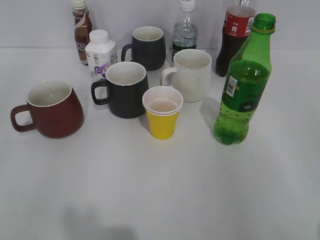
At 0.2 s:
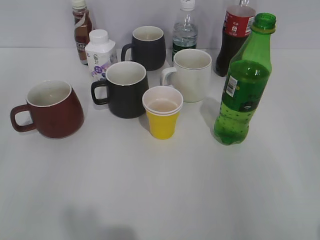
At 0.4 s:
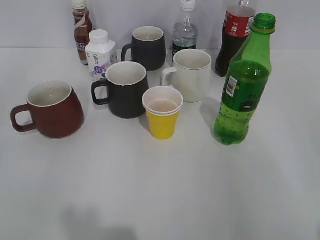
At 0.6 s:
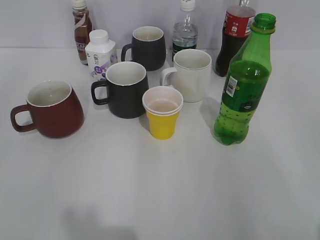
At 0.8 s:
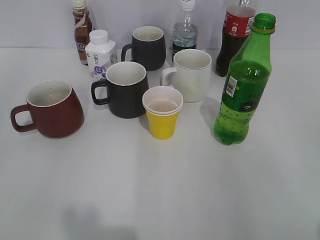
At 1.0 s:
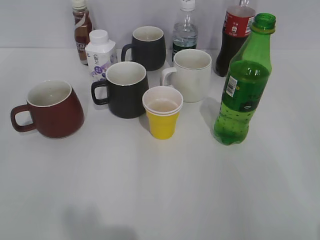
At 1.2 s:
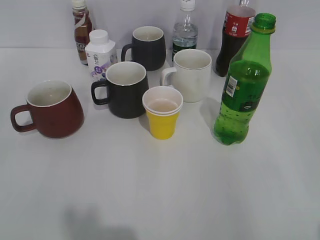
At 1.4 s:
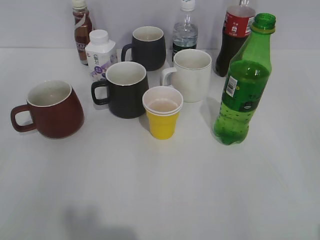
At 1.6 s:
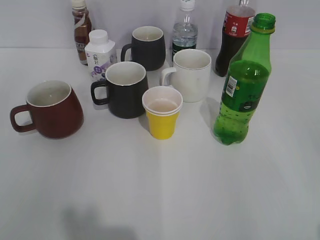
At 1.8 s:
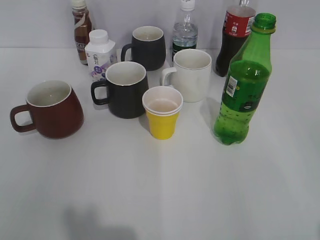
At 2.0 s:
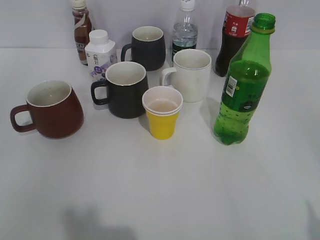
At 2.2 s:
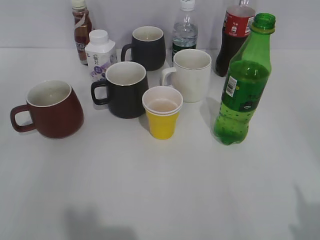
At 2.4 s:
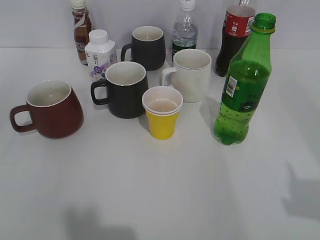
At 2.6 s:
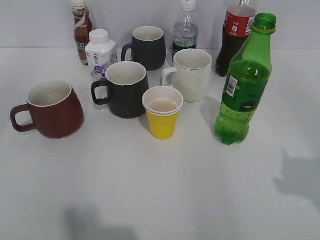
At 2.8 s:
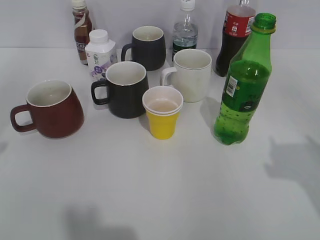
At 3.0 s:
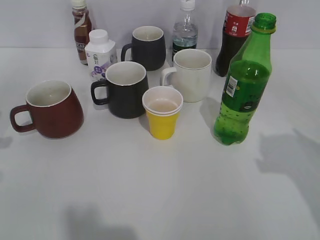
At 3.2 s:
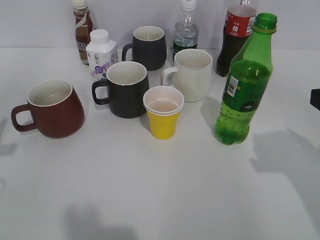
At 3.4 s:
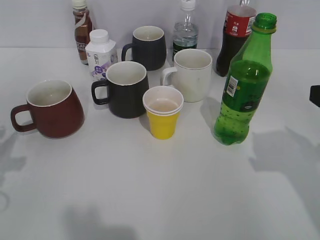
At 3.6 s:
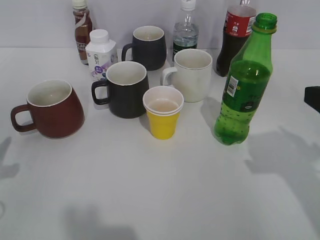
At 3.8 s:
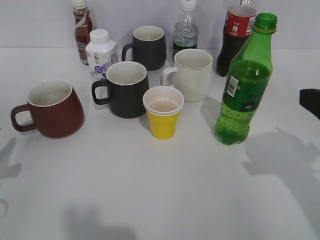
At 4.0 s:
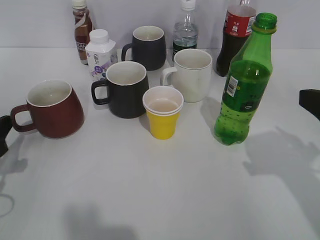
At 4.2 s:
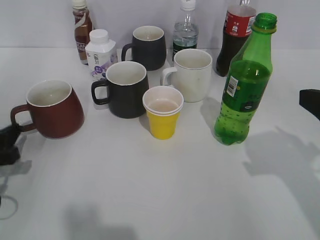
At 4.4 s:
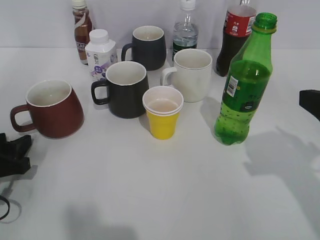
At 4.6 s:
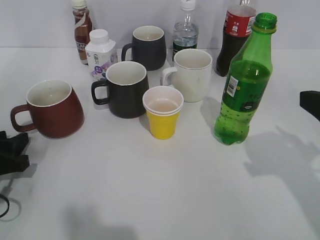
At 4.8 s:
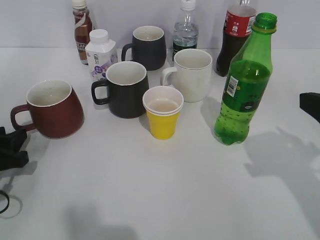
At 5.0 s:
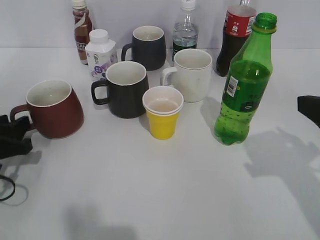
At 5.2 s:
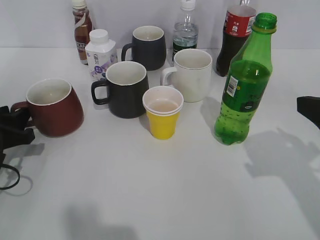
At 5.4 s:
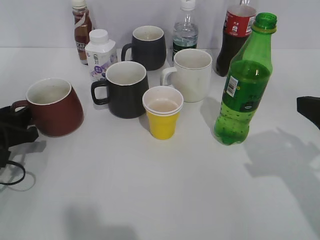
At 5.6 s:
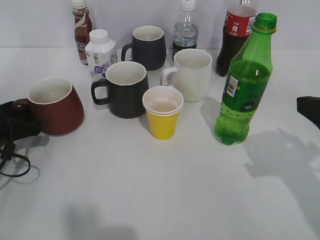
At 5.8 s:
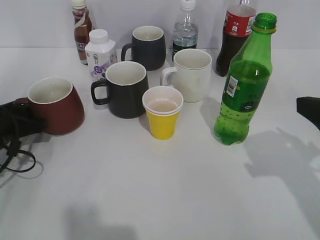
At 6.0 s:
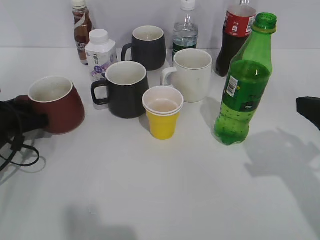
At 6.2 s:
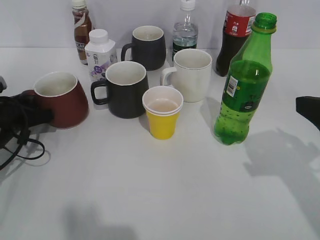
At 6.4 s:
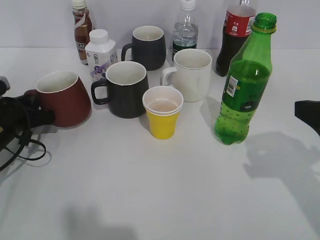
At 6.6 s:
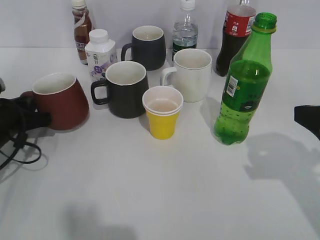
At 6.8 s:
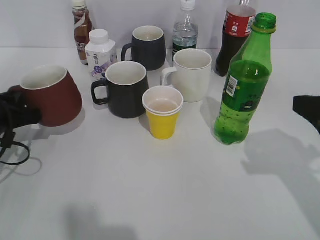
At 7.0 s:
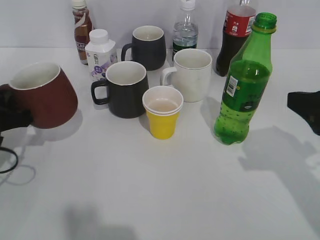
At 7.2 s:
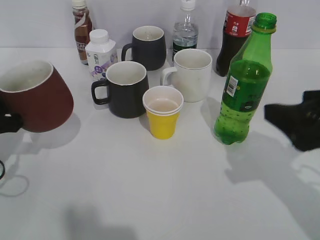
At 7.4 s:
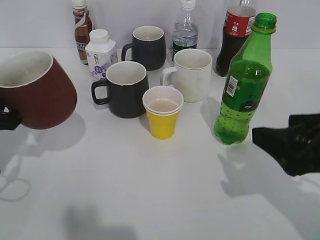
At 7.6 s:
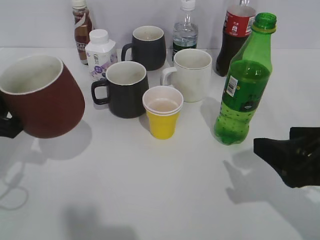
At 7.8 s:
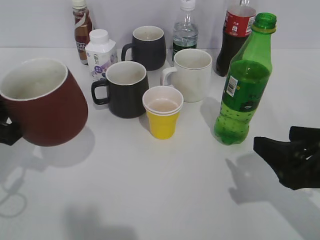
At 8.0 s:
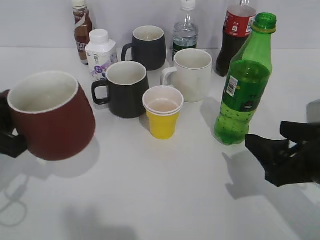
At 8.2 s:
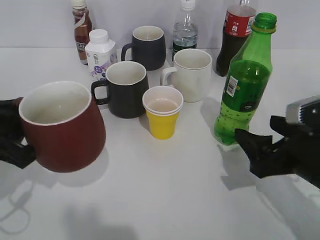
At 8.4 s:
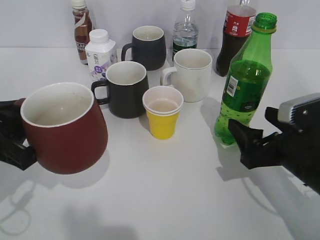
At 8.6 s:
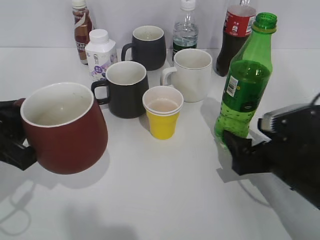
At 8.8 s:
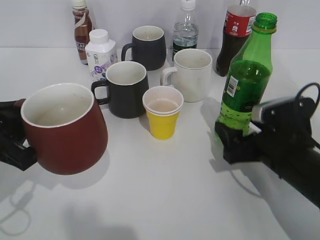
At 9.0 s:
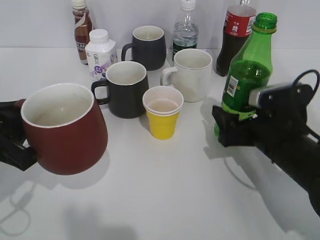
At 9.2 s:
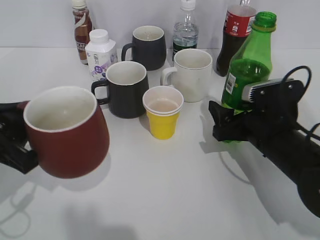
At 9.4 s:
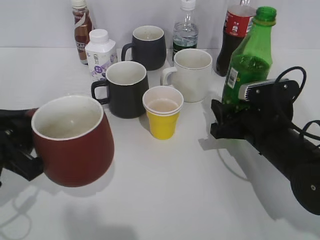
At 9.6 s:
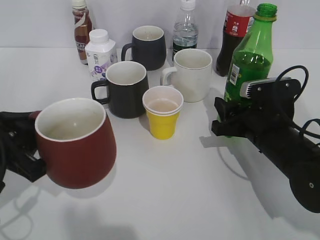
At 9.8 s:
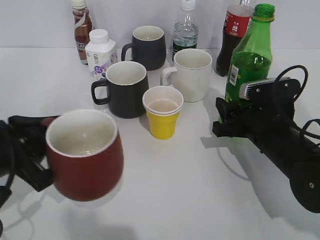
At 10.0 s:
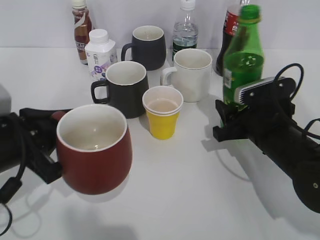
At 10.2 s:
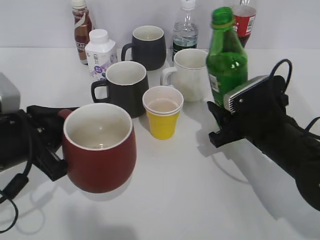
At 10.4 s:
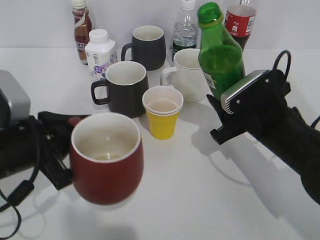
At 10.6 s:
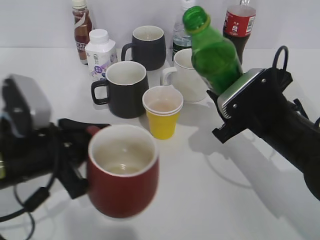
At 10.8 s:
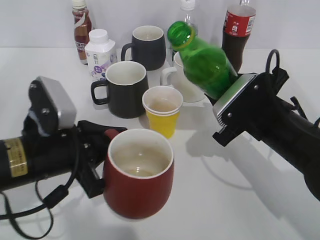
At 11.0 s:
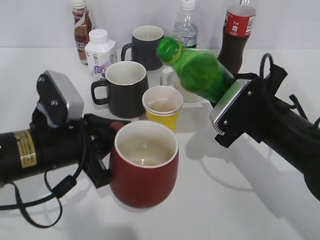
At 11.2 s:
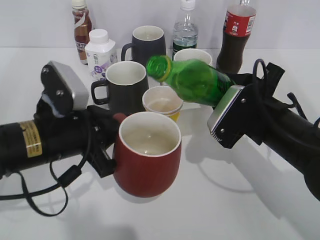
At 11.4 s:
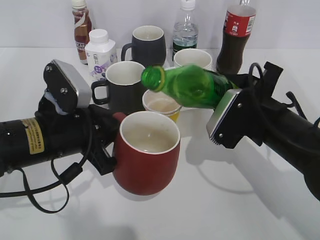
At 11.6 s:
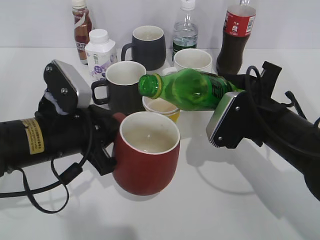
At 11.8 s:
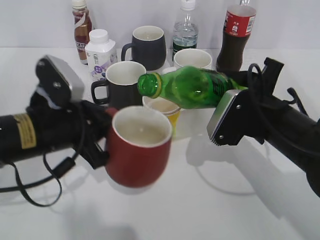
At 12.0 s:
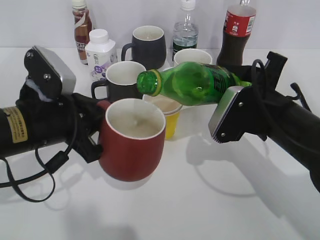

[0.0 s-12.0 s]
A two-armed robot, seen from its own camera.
Step, 1.6 to 6.0 s: Grasp the red cup with left gripper.
Step, 6.2 to 6.4 s: Lift the red cup with left gripper.
Step, 6.6 to 9.4 s: Grasp the bottle with sprite with right gripper.
3.0 to 4.4 s: The left gripper shifts some 15 cm downward, and opens its fingers.
4.4 to 6.0 s: The left gripper heads forward, covering roughly 10 cm, and closes its fingers.
6.0 to 7.6 s: The left gripper is displaced upward and backward by approximately 10 cm; the right gripper changes place by approximately 5 cm.
7.6 to 9.0 s: The right gripper is displaced forward and downward by approximately 10 cm.
9.0 to 10.4 s: The right gripper closes.

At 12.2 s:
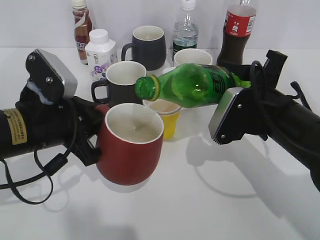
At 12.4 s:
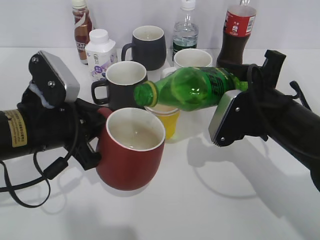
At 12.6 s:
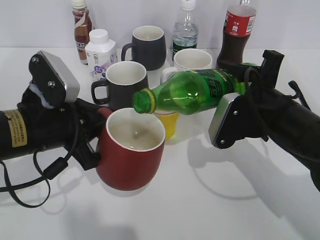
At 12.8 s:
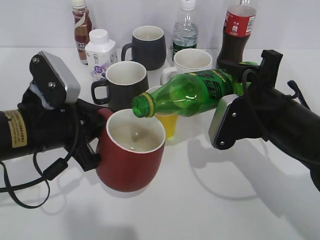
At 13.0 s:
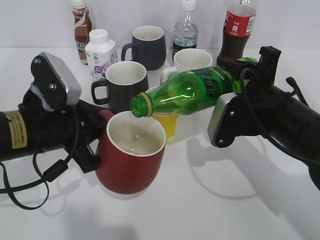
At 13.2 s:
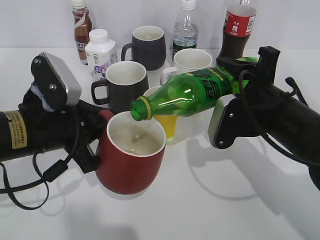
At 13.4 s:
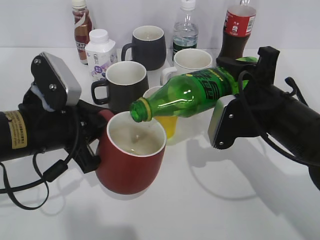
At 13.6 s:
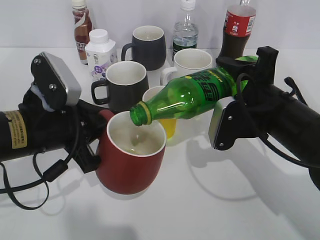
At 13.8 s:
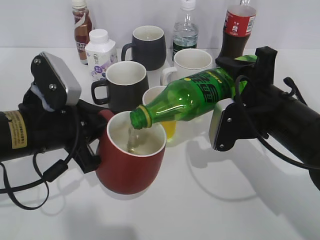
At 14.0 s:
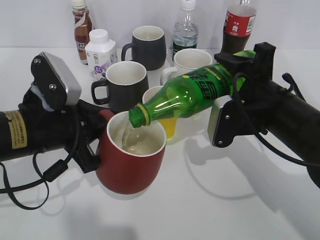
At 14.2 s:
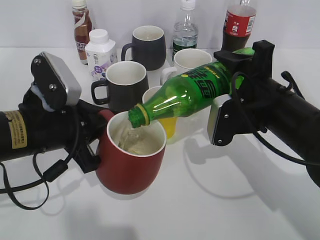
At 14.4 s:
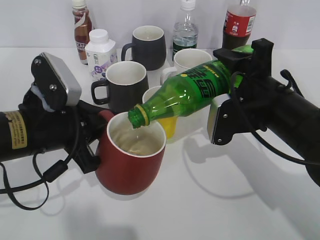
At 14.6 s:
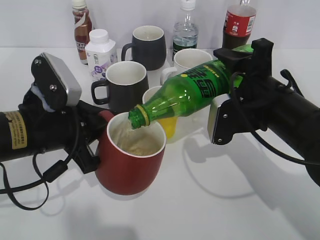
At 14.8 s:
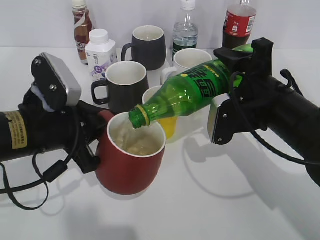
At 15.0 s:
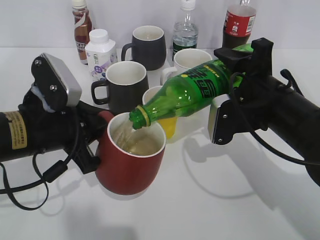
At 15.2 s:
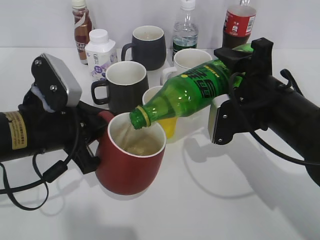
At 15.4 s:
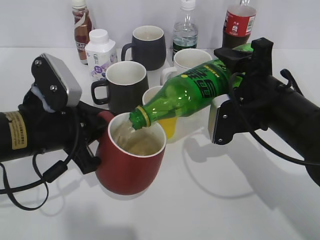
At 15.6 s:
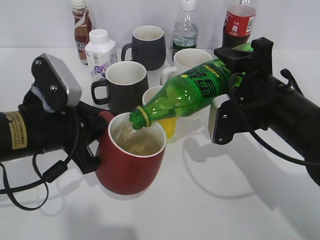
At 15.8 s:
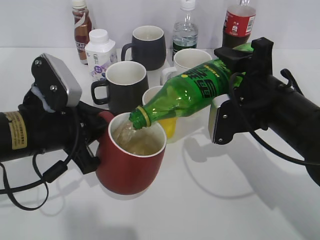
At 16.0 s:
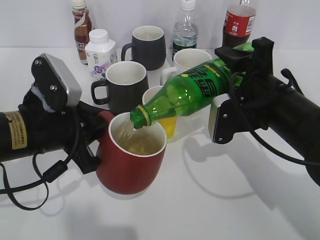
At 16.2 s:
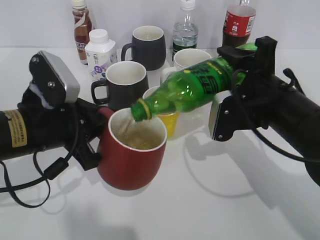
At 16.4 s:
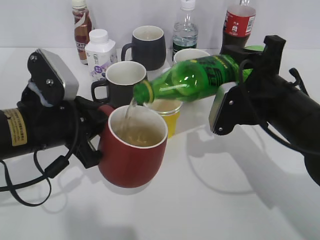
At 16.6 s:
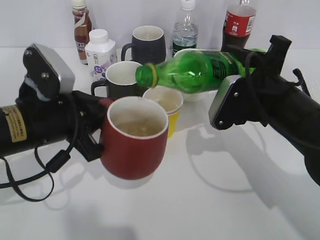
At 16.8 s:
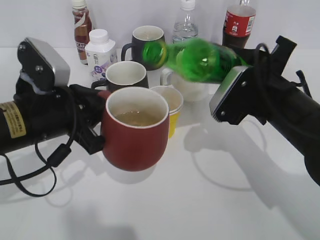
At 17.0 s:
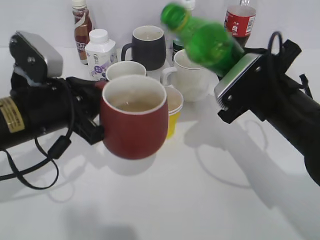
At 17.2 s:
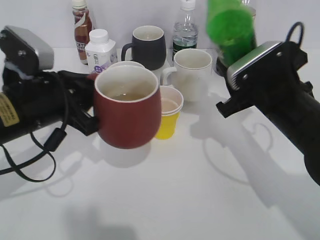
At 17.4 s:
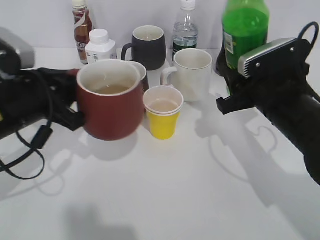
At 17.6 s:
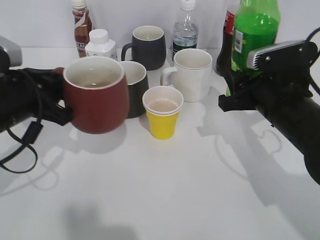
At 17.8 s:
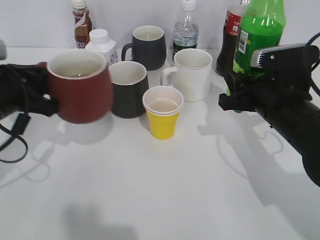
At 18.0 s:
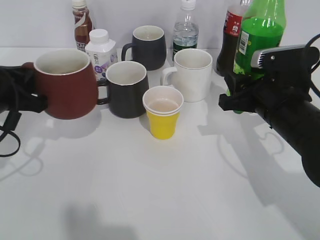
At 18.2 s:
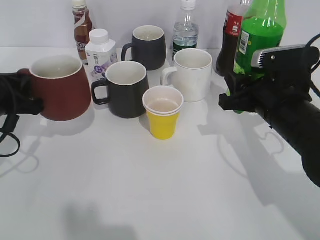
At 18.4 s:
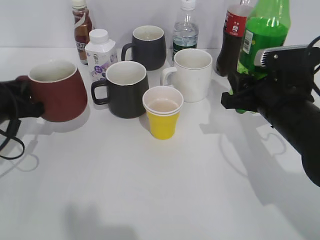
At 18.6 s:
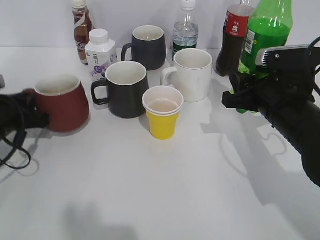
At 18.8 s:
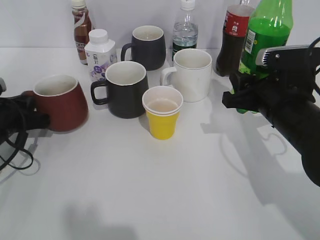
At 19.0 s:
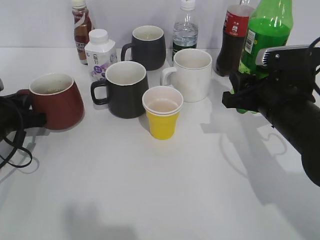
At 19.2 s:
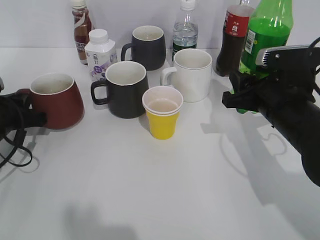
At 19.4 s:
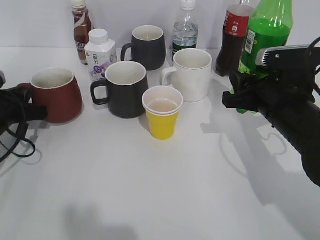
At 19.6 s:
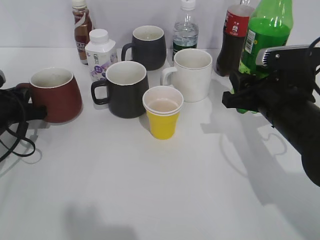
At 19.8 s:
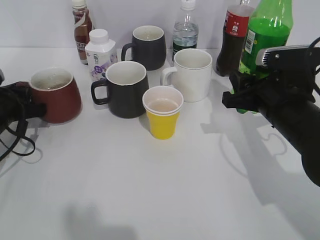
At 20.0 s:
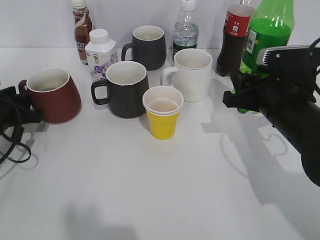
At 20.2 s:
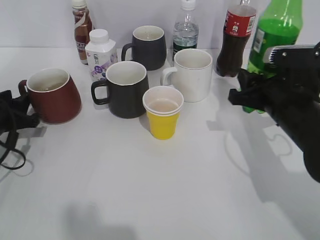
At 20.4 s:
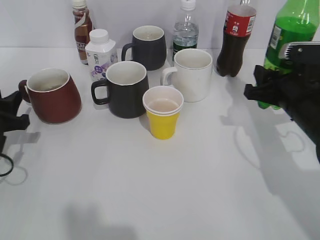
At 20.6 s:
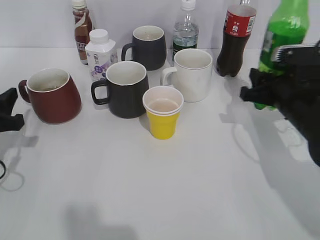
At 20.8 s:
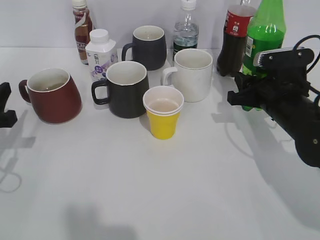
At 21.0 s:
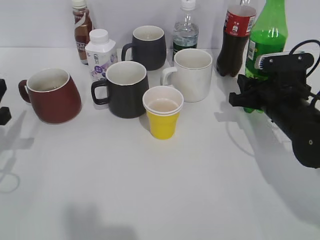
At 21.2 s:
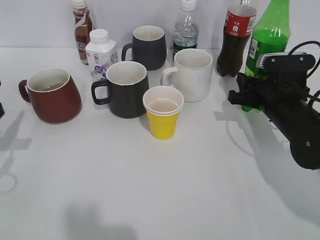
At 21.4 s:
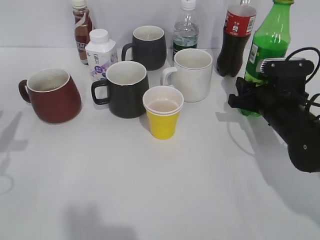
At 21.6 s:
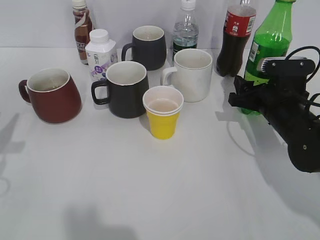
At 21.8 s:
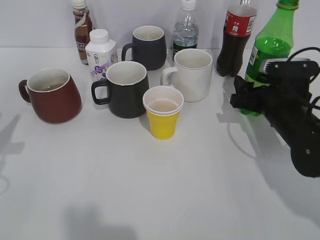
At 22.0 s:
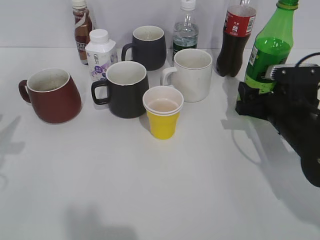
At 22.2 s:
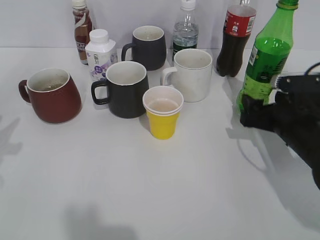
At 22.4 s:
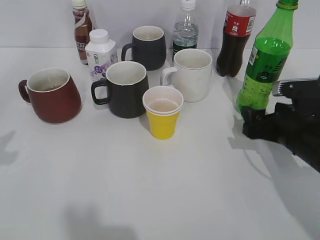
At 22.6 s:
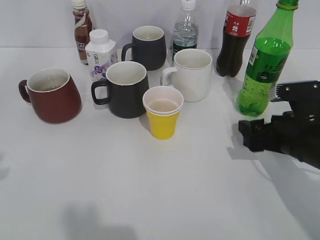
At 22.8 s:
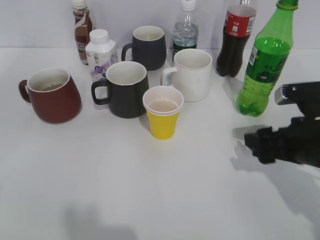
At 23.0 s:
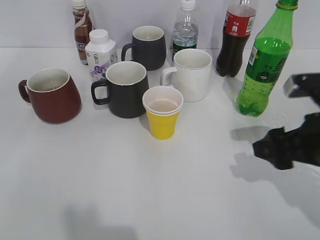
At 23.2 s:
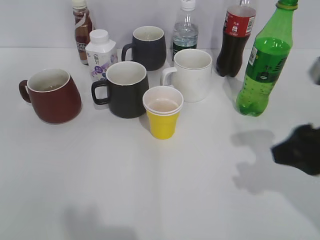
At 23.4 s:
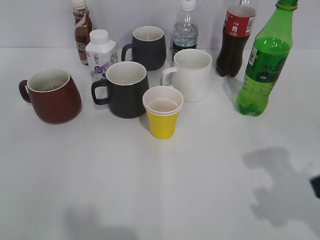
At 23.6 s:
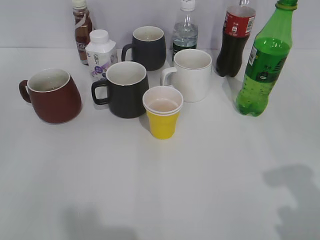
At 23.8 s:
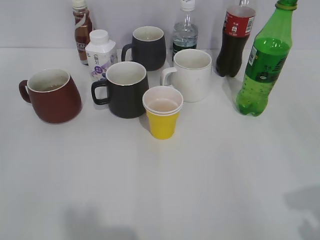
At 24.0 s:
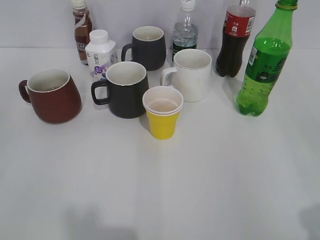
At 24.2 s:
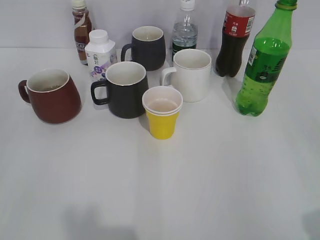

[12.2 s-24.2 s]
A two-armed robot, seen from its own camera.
Step, 12.2 to 16.4 s: Pour the sprite from bottle to cup with right gripper.
Step, 16.8 to 19.6 s: Place the red cup on the table with left gripper.
Step, 19.8 to 22.2 s: Place the sprite bottle on the table with right gripper.
12.2 to 13.8 s: The grippers move only a little.
13.8 to 15.2 s: The grippers stay close to where they were, moving slightly.
16.6 to 18.2 s: The left gripper heads to the left, covering some 10 cm.
18.2 to 19.8 s: The left gripper is displaced downward by some 5 cm, and opens.
19.8 to 21.2 s: The right gripper changes place by some 5 cm; the left gripper travels backward and upward by about 10 cm, and opens.
21.2 to 22.6 s: The right gripper travels backward by approximately 5 cm, and opens.
22.6 to 24.2 s: The right gripper is displaced backward and upward by some 25 cm.
